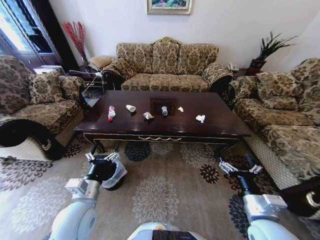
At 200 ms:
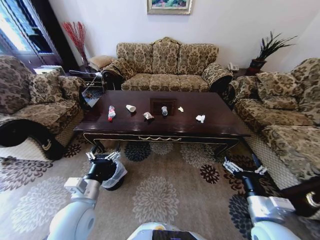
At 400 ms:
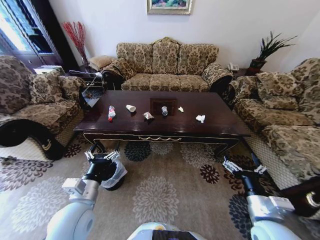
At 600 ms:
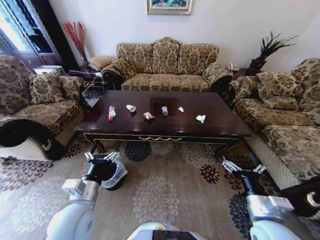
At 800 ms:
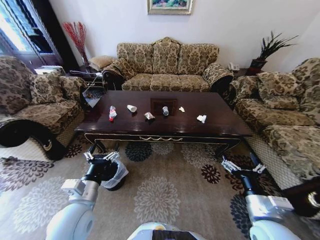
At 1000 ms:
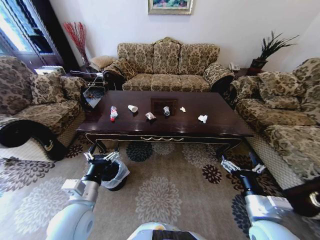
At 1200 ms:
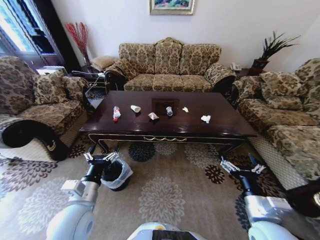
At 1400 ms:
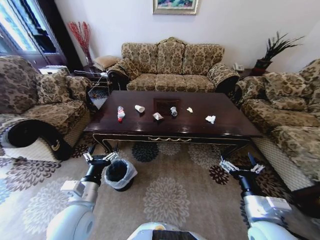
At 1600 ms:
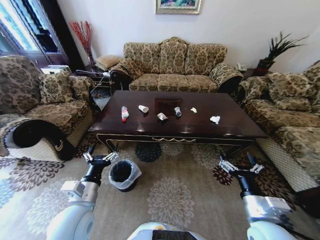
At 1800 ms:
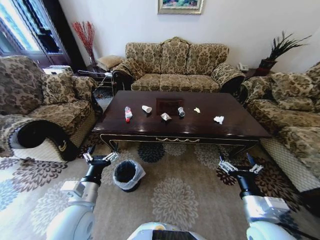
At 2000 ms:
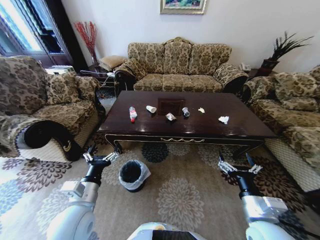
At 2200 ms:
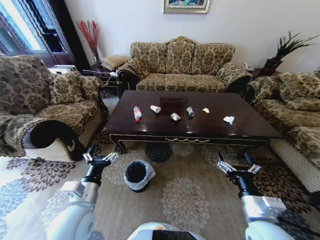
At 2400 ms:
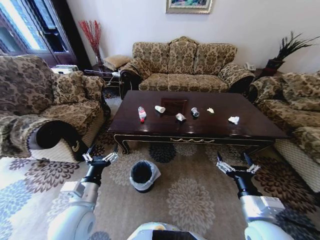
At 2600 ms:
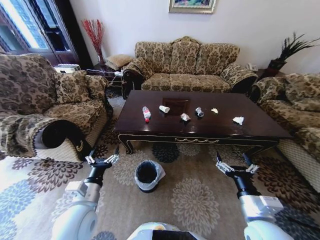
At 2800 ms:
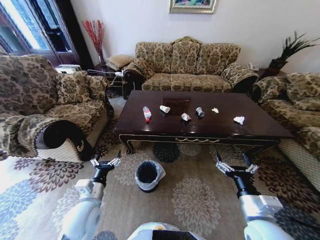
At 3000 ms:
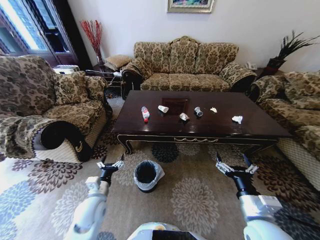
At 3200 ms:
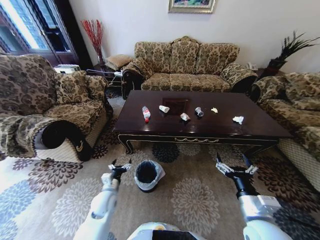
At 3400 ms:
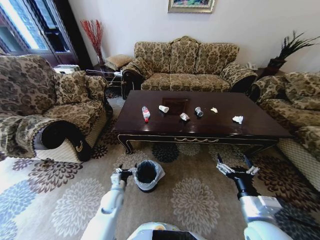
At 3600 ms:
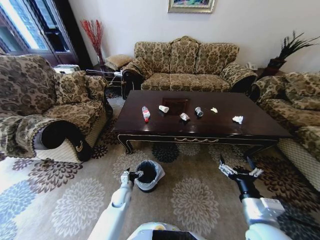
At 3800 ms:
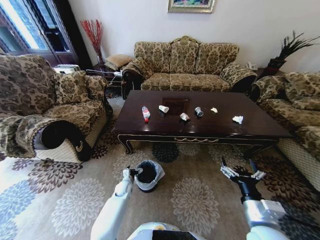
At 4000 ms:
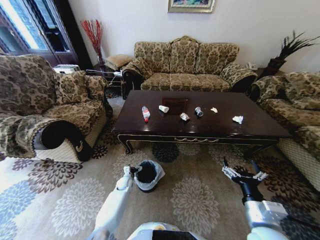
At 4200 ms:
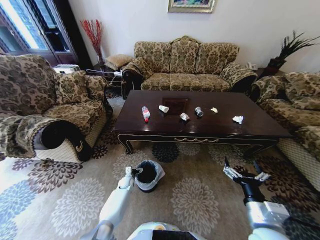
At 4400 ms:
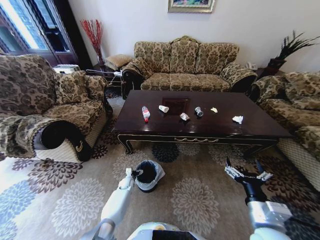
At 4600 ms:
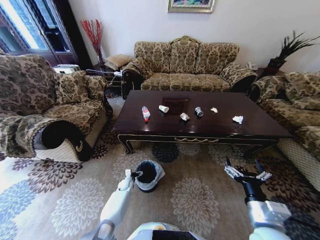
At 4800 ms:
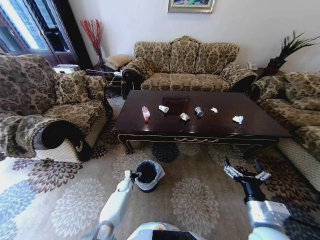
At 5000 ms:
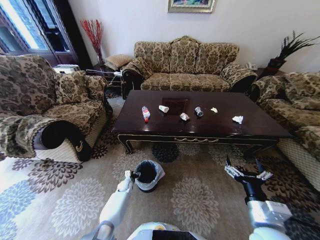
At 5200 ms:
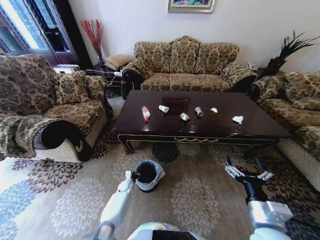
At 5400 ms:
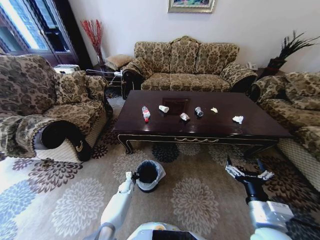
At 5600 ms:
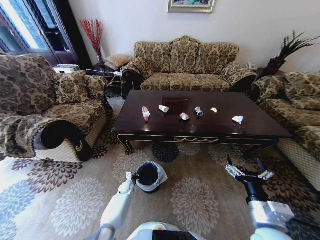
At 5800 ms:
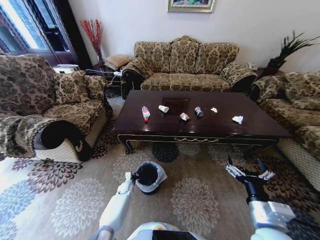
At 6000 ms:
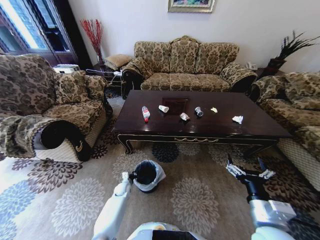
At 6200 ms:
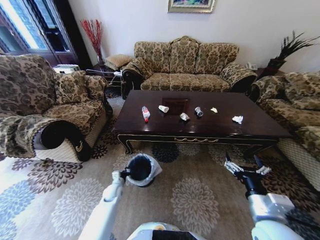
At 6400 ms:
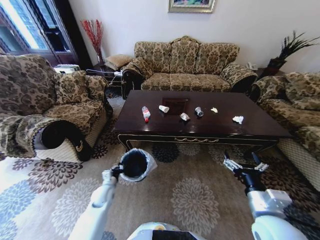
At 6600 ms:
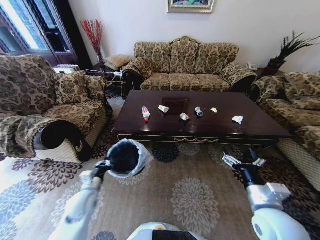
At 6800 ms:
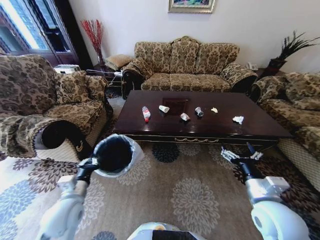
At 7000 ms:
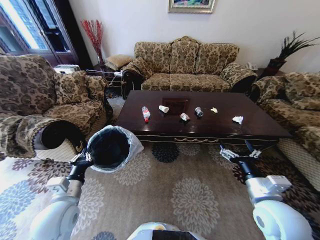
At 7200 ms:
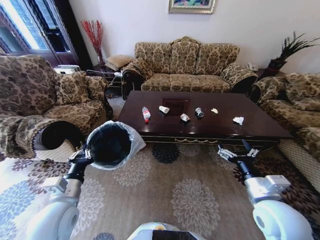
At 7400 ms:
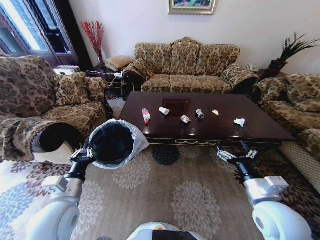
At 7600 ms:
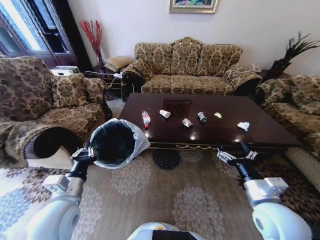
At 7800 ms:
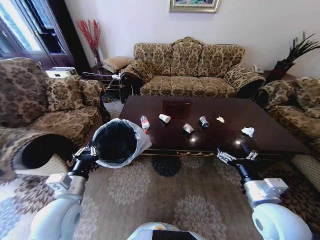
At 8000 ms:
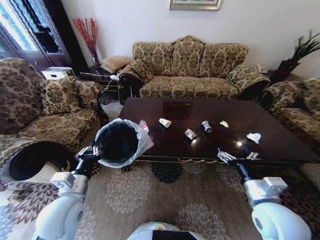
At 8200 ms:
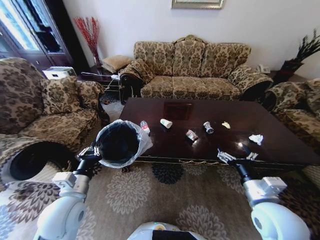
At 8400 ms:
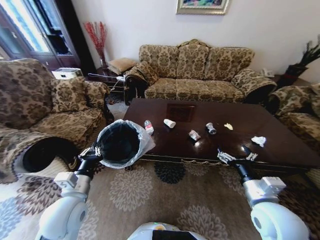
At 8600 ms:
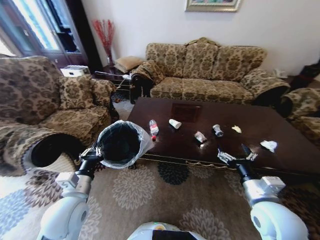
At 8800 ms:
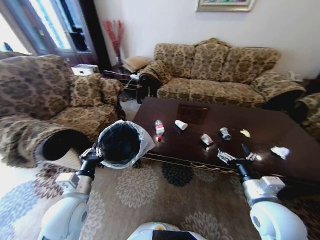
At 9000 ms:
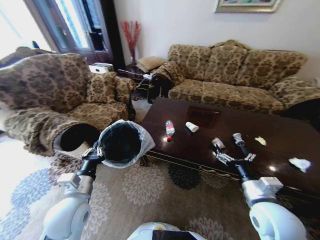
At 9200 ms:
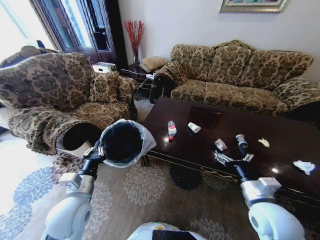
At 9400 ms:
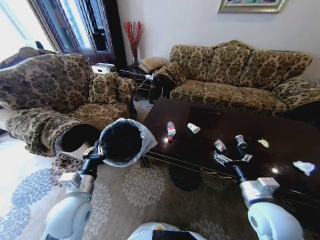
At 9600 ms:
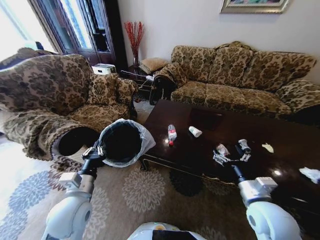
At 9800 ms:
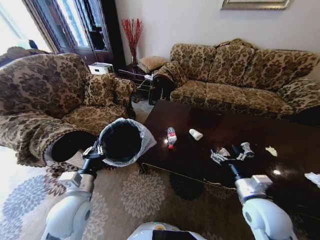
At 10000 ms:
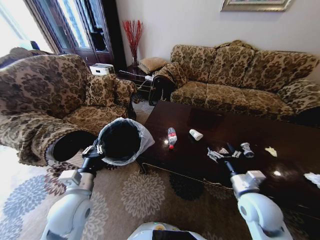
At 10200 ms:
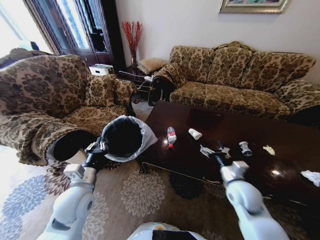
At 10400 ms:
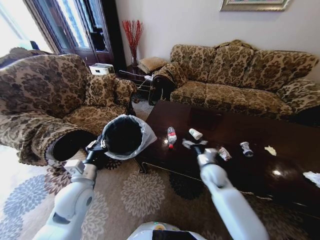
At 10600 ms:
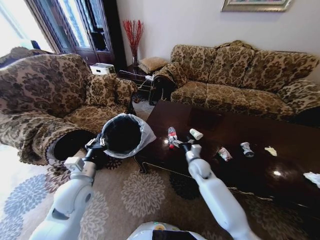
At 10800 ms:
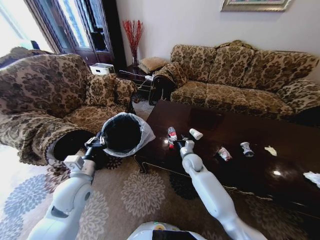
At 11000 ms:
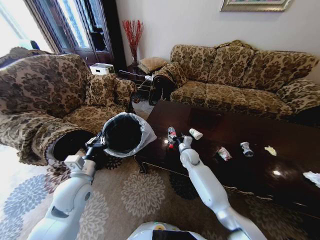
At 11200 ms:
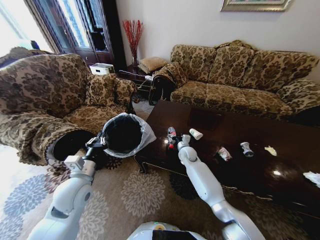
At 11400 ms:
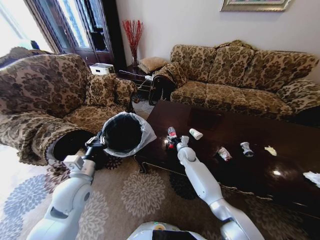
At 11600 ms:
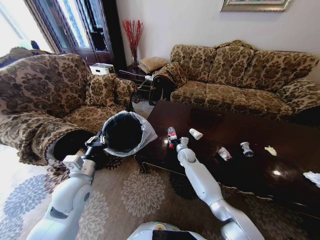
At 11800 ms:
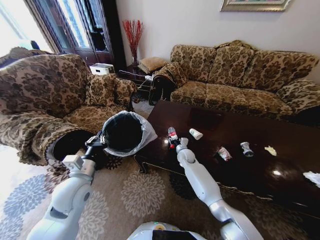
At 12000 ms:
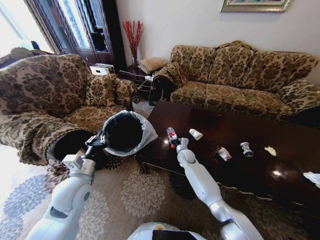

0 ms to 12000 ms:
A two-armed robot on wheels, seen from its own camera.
Task of the whole recording: Move to the front of the table and place the trash on the table into the trash bin.
1600 ms to 3000 ms: The left gripper travels downward by roughly 10 cm.
3000 ms to 4400 ms: The left gripper travels downward and forward by approximately 30 cm.
4400 ms to 6000 ms: The left gripper closes up.
6000 ms to 7600 ms: The left gripper travels upward and backward by approximately 40 cm, while the right gripper moves roughly 5 cm.
9000 ms to 10400 ms: The right gripper heads forward and downward, covering about 20 cm.
10400 ms to 12000 ms: The right gripper travels forward, to the left and downward by approximately 20 cm, and closes its fingers.

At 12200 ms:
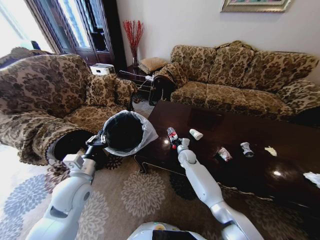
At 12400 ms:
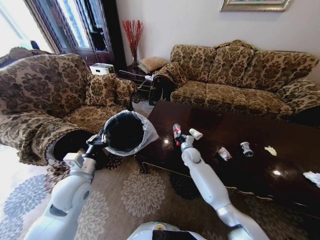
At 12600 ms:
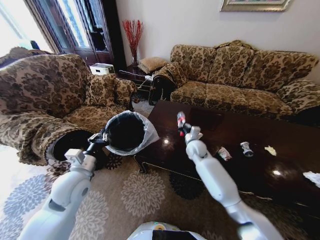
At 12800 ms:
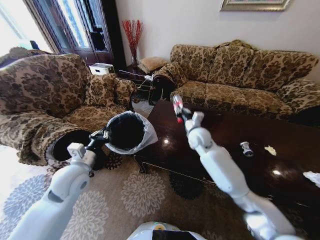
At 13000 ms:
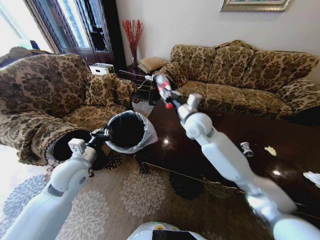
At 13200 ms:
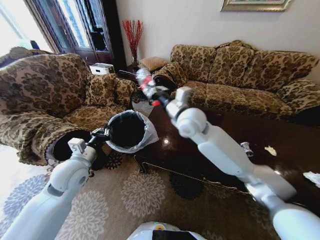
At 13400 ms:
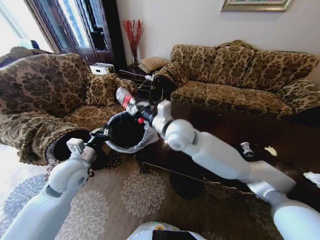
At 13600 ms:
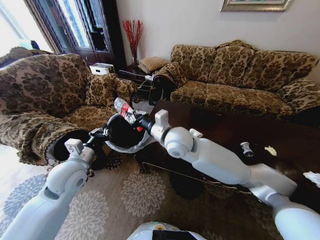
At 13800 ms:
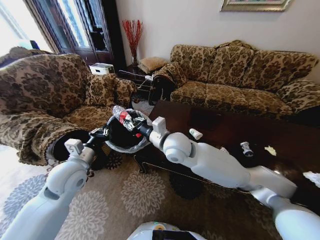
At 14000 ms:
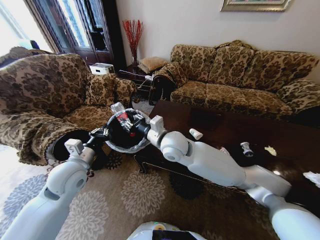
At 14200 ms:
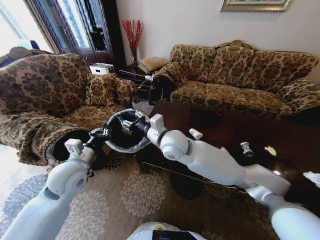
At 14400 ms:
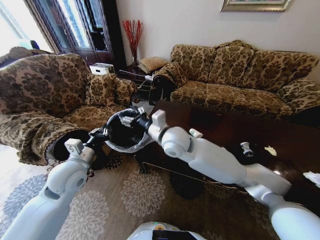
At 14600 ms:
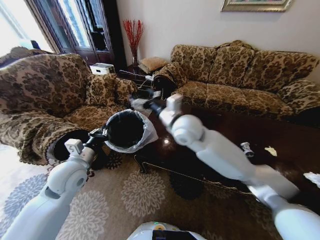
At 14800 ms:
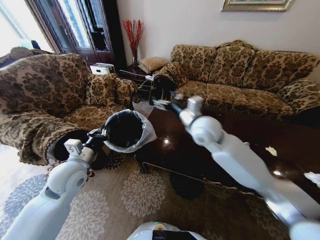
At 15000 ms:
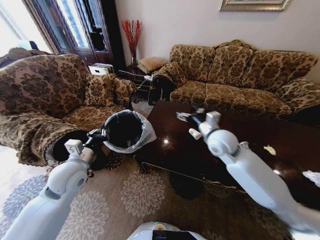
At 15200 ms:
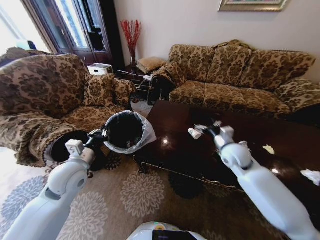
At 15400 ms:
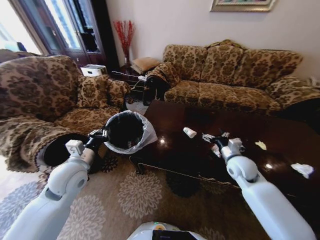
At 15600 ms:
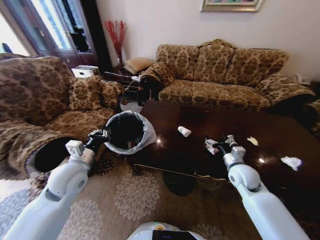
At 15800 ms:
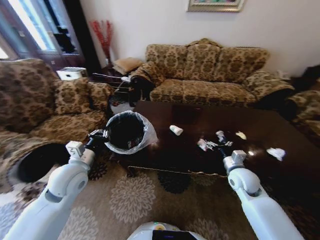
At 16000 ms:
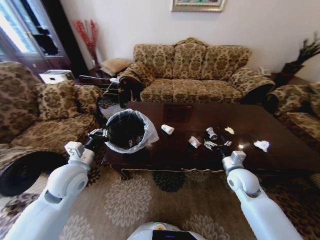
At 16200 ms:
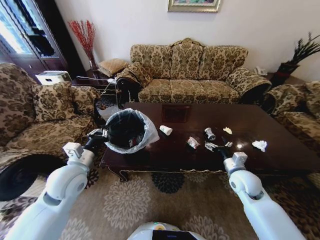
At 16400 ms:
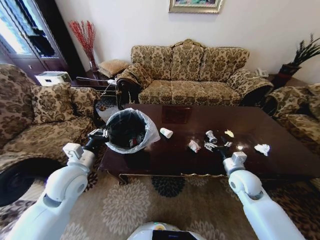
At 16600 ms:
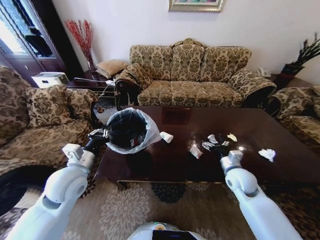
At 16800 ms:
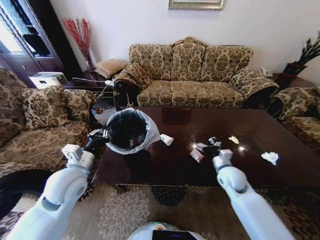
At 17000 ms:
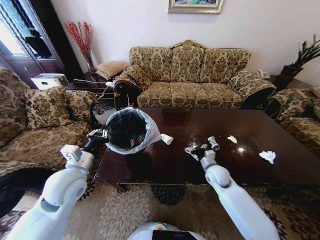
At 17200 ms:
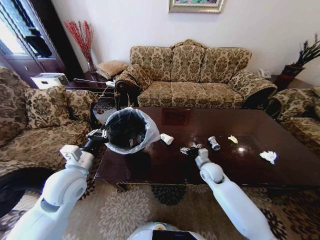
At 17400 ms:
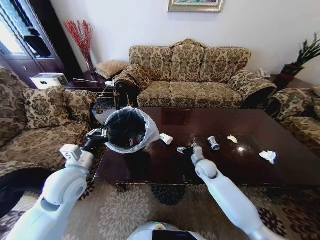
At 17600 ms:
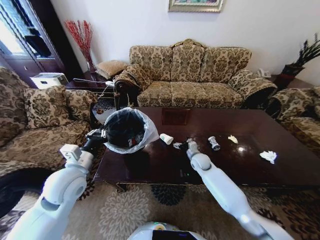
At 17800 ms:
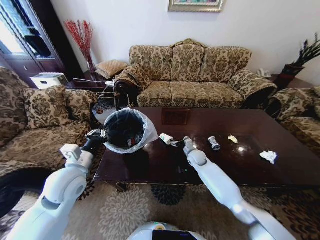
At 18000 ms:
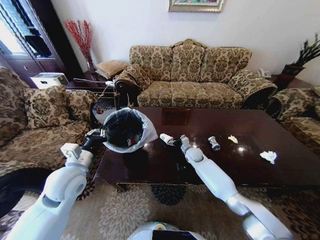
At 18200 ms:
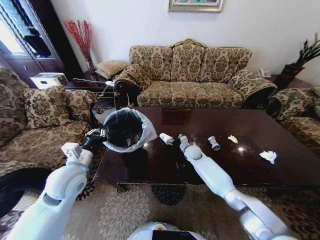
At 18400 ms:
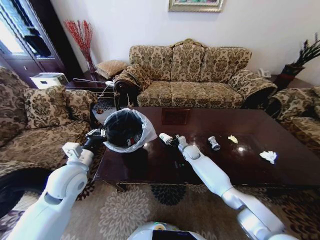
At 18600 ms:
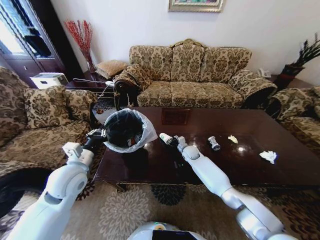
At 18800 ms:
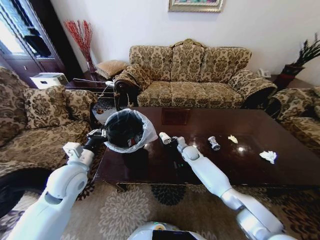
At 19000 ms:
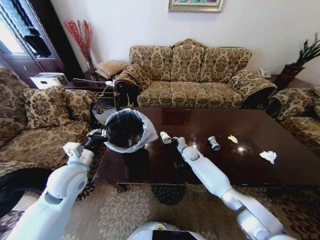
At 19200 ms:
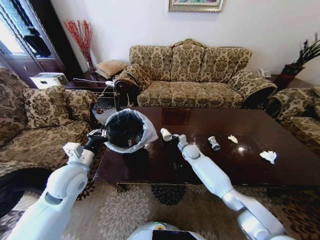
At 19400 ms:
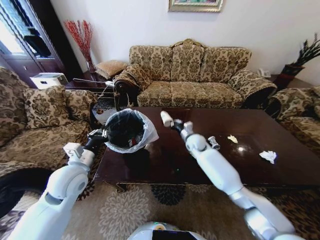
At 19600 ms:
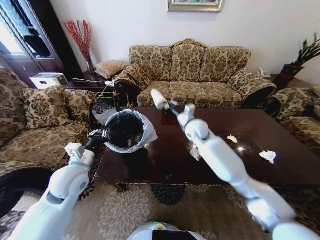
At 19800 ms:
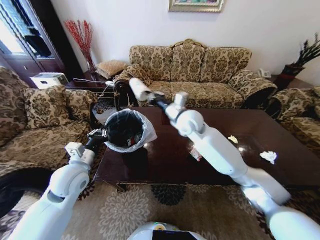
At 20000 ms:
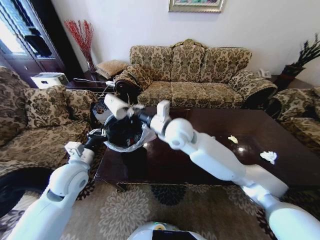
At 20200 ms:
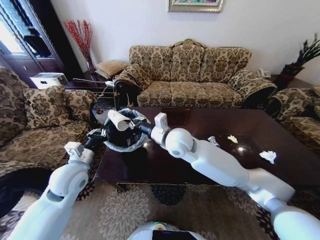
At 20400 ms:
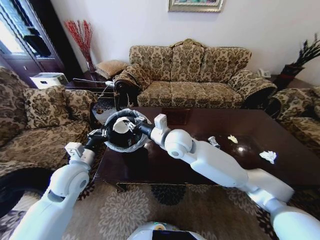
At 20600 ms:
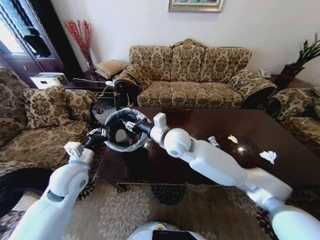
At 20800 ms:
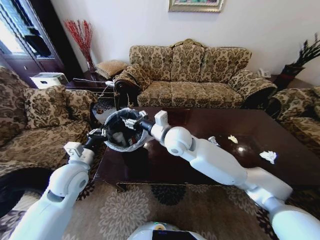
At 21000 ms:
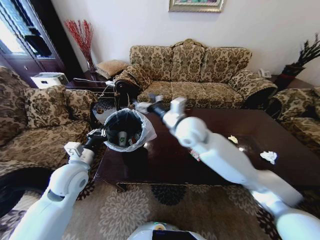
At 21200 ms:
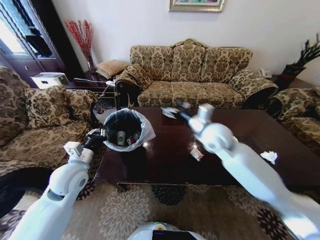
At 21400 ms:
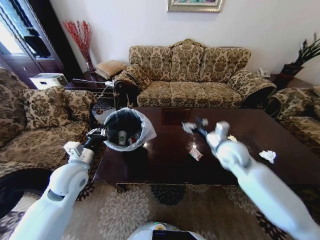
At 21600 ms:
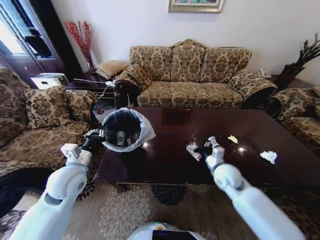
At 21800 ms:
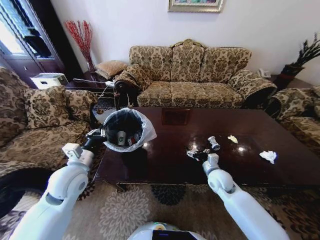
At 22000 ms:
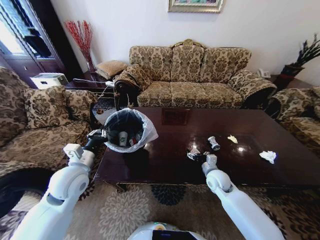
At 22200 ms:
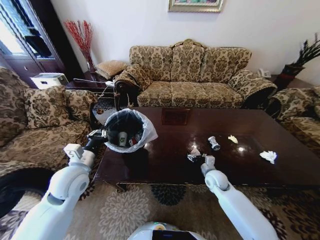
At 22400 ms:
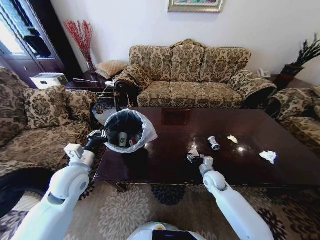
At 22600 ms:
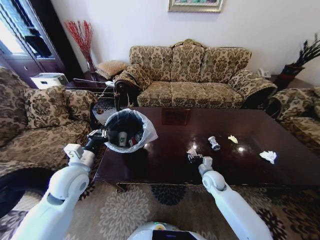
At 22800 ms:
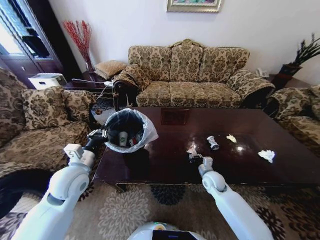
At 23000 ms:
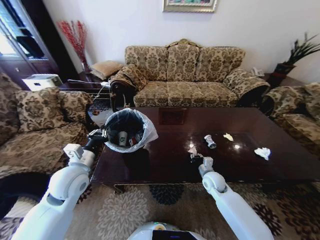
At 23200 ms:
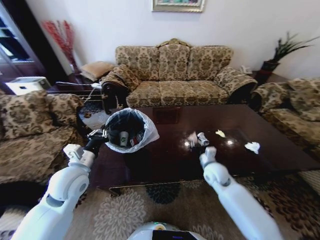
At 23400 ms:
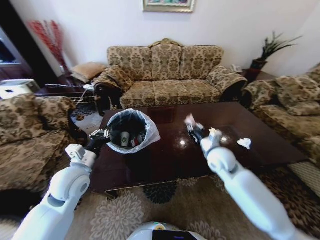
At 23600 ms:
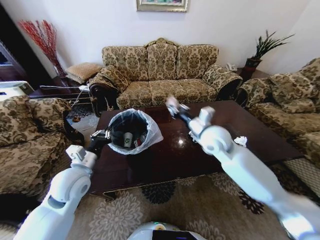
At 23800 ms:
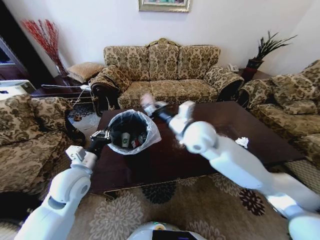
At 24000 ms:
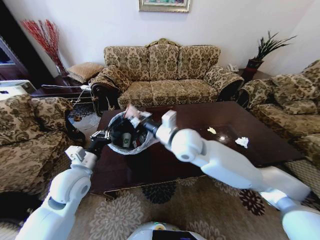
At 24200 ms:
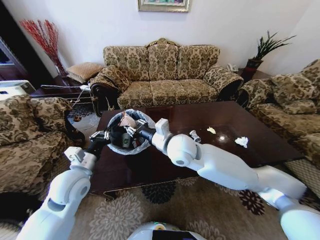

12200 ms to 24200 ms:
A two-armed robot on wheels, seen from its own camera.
Task of the whole recording: Move to the front of the table and place the trash on the table into the trash bin.
12200 ms to 13800 ms: The left gripper changes place by some 5 cm, while the right gripper goes roughly 30 cm upward, backward and to the left.
13800 ms to 15200 ms: The right gripper shifts some 25 cm to the right, and opens up.
15200 ms to 16600 ms: The right gripper heads downward and backward, covering about 10 cm.
16600 ms to 18200 ms: The right gripper is displaced forward, to the left and downward by some 25 cm.
18200 ms to 19800 ms: The right gripper moves upward, about 30 cm, and closes.
19800 ms to 21200 ms: The right gripper is displaced to the right by some 10 cm, and opens its fingers.
21200 ms to 22600 ms: The right gripper goes roughly 25 cm downward, and closes its fingers.
22600 ms to 24200 ms: The right gripper shifts some 35 cm upward and to the left.
